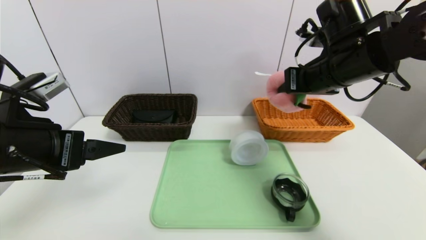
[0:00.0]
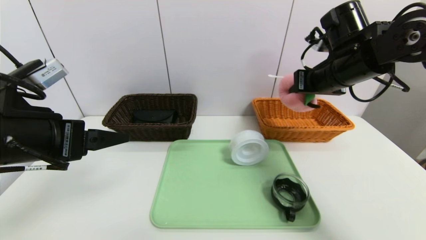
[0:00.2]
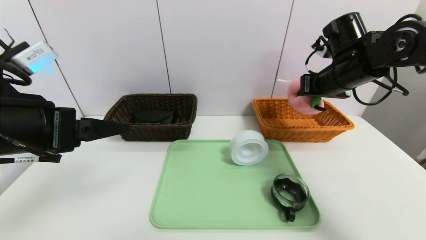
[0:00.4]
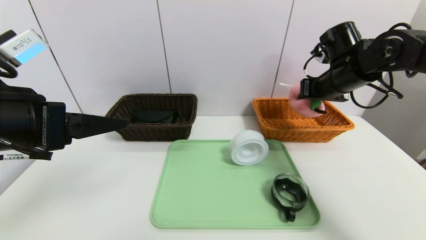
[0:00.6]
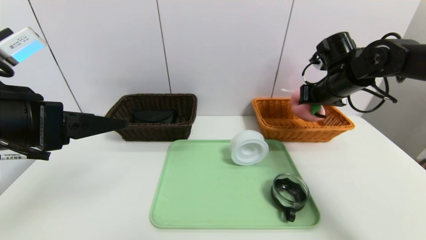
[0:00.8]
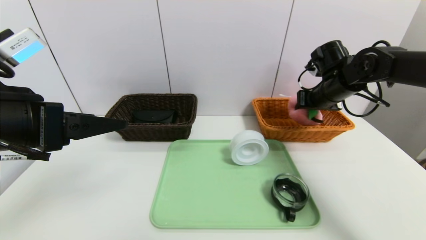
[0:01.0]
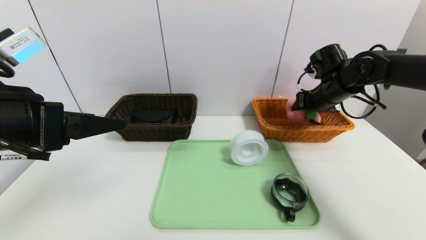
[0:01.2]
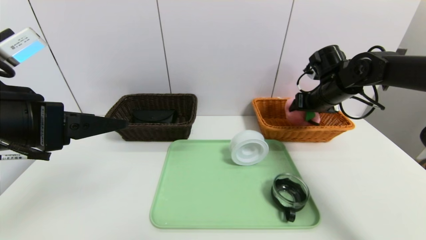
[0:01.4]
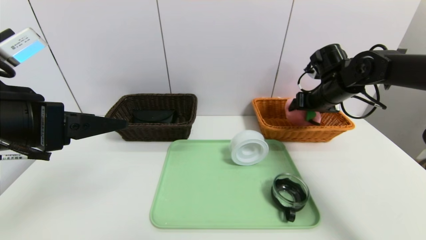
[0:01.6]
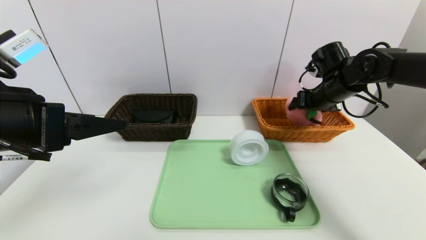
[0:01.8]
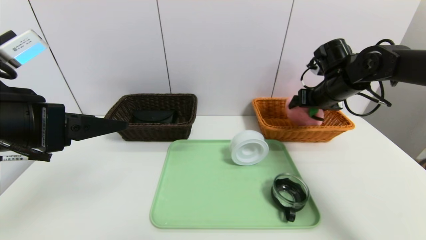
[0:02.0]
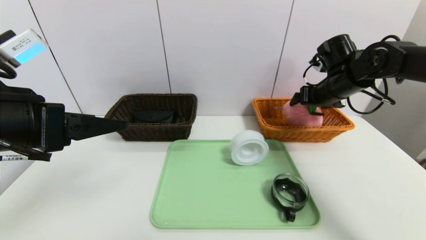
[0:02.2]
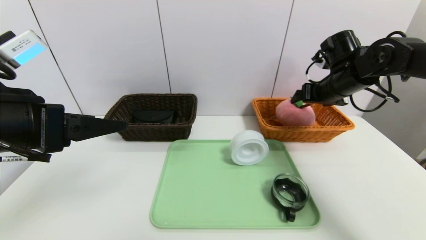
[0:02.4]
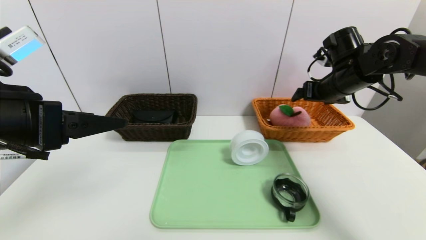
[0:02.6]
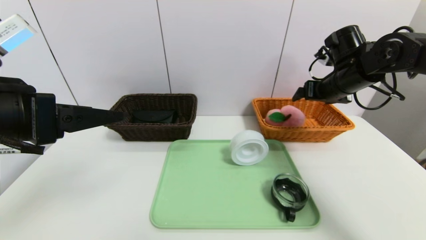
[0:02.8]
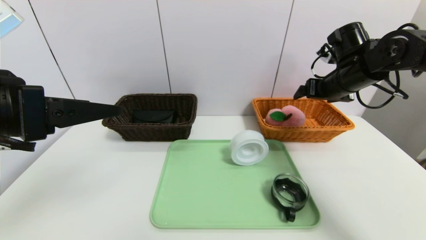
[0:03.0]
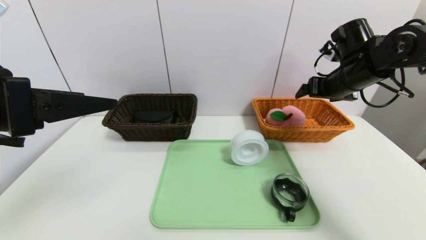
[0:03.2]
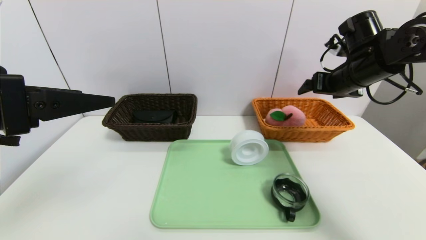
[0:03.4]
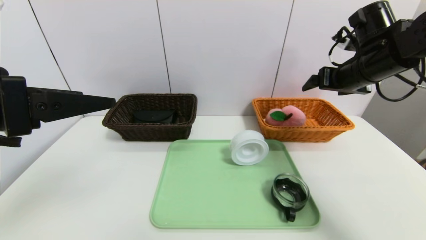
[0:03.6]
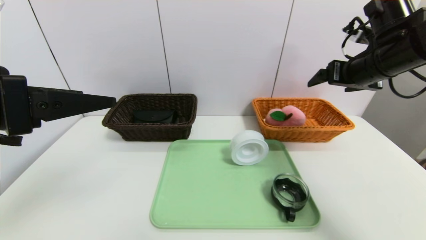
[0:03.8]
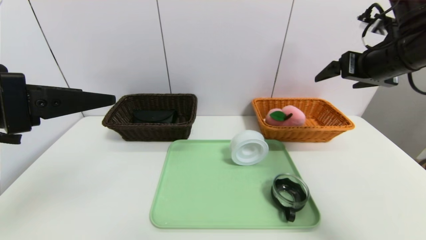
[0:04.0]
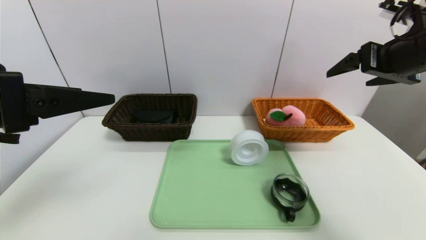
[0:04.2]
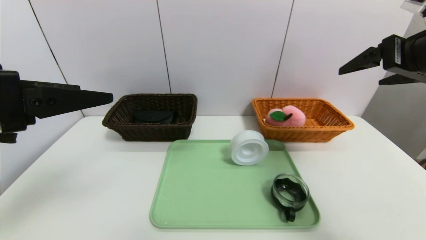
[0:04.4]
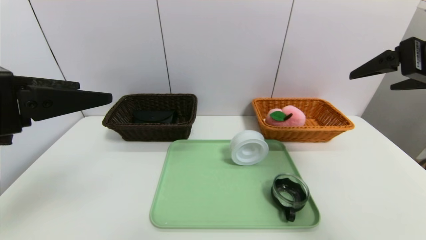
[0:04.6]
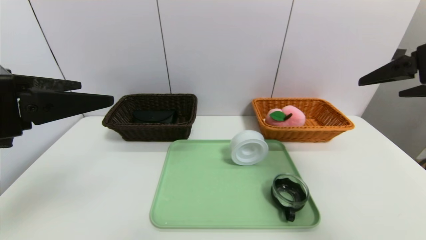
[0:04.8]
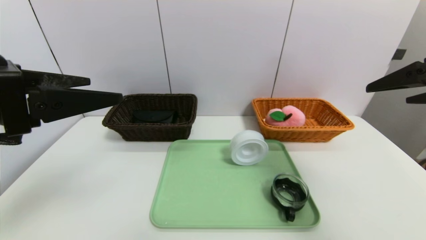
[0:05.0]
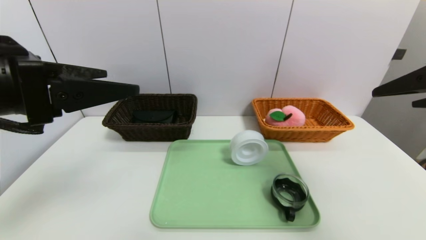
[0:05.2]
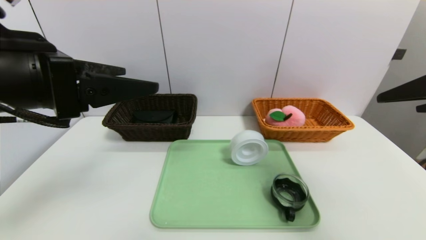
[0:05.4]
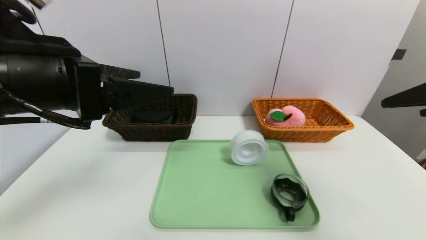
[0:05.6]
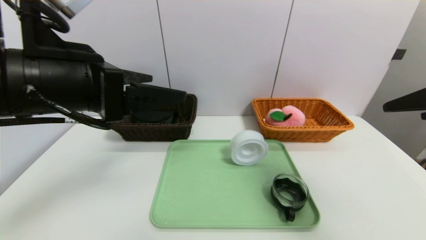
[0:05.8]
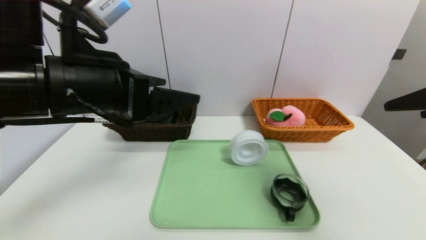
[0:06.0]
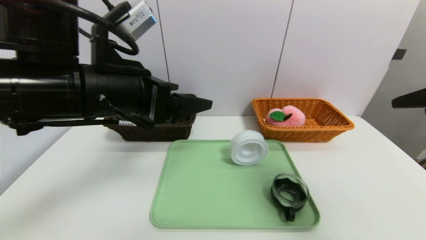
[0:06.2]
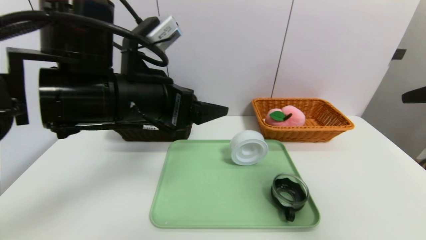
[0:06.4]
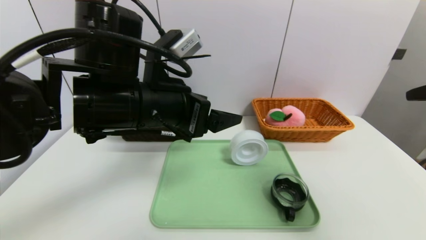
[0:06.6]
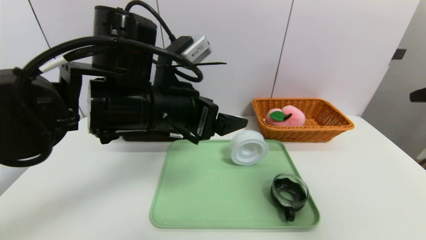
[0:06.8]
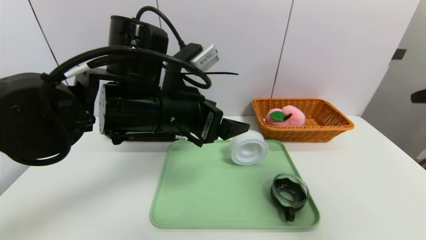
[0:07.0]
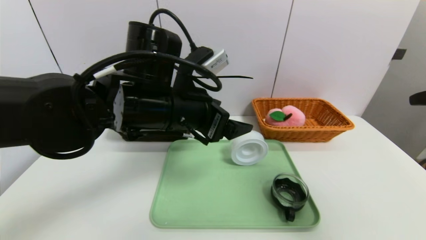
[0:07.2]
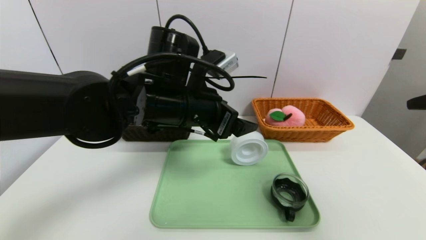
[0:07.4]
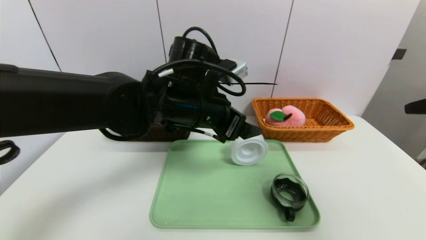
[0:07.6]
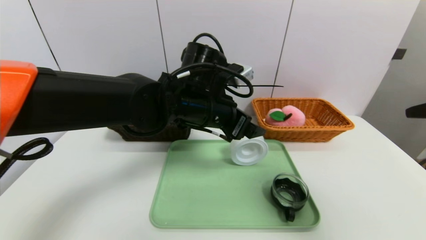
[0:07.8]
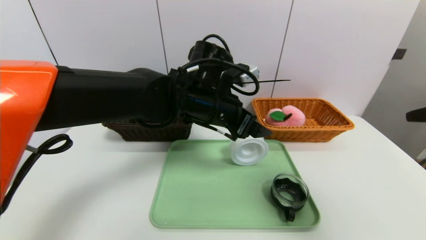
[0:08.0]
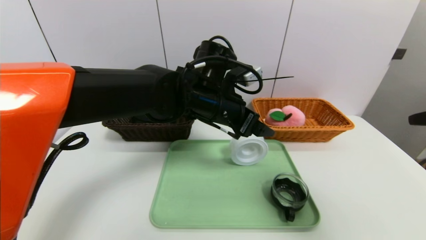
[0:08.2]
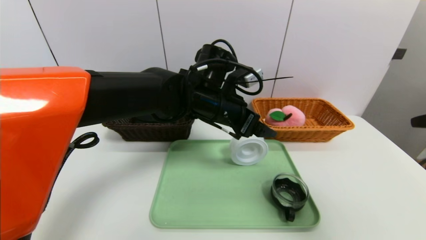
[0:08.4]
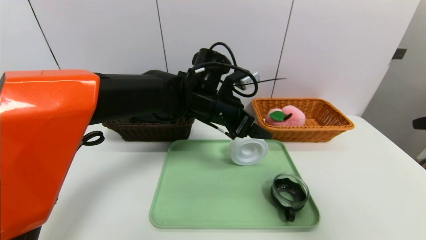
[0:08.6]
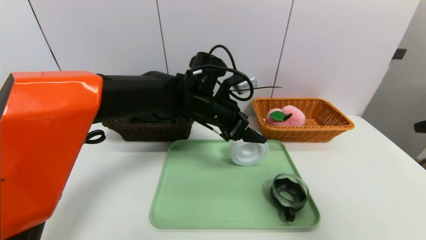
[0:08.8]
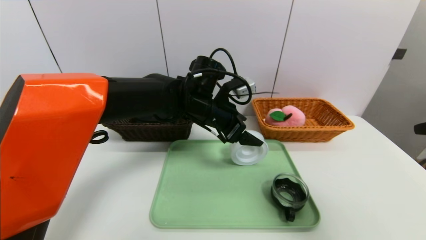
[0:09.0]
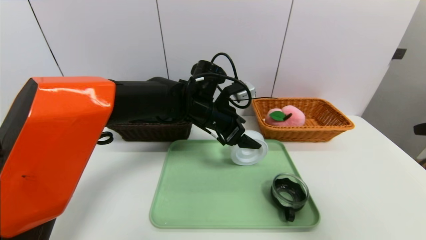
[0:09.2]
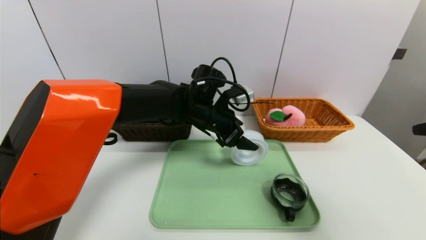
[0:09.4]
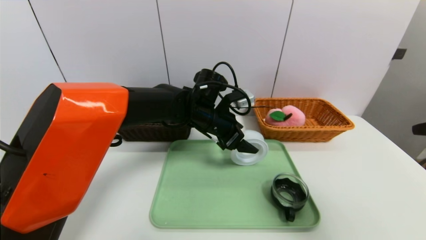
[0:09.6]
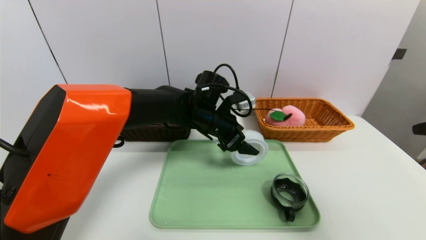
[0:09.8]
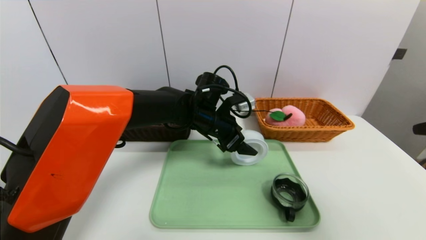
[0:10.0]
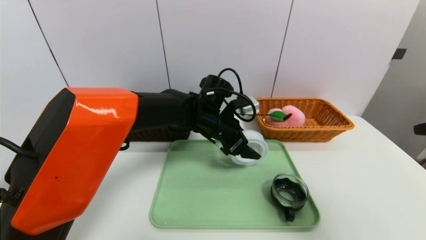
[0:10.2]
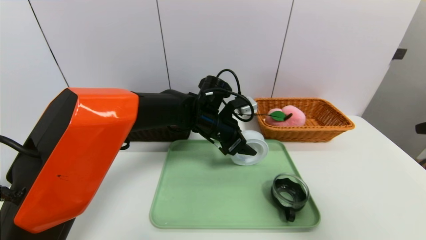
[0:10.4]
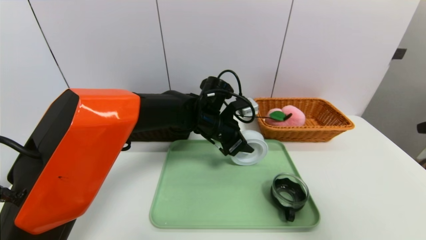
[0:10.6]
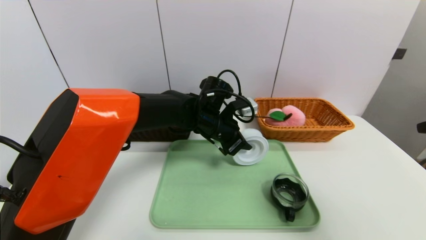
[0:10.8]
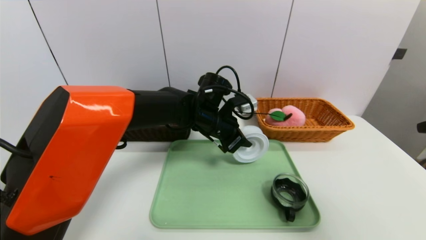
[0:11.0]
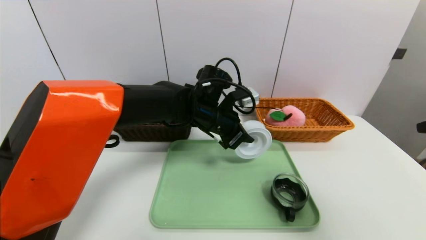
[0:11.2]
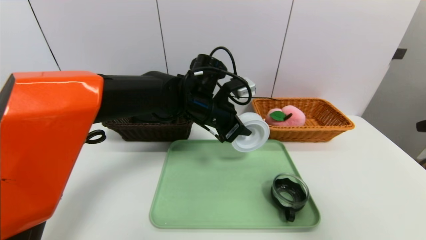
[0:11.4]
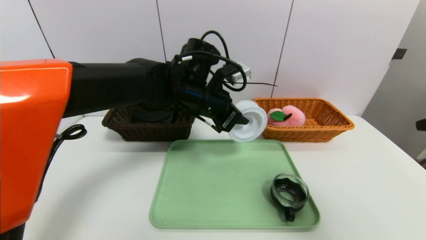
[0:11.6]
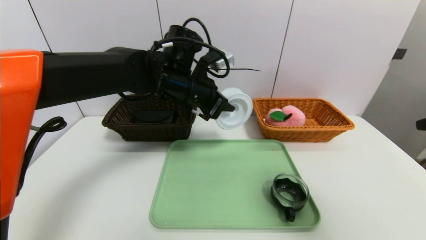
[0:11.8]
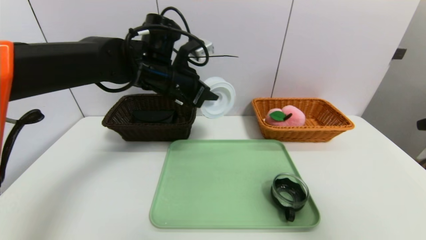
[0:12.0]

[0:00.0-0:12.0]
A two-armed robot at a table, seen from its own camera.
Task of the whole recording: place the food in the right basket with the right gripper, and place the non food items in the left basket with the left gripper.
Step, 0:00.0 to 0:02.4: Grasp the peach doll and put it in the right basket.
0:00.0 to 0:01.6: The right gripper is displaced forward, downward and to the right by roughly 15 cm, and opens.
0:01.6 to 0:03.0: The right gripper moves about 5 cm.
0:03.0 to 0:04.4: The right gripper heads backward and upward, covering some 20 cm.
0:04.4 to 0:06.0: The right gripper moves backward, roughly 10 cm. Meanwhile the left gripper moves to the right and forward, approximately 10 cm.
0:06.0 to 0:07.6: The left gripper goes roughly 15 cm to the right, forward and downward.
0:07.6 to 0:09.0: The left gripper is displaced forward by approximately 5 cm.
0:09.0 to 0:10.4: The left gripper closes its fingers.
0:10.4 to 0:12.0: The left gripper shifts some 15 cm upward and to the left, and closes its fingers.

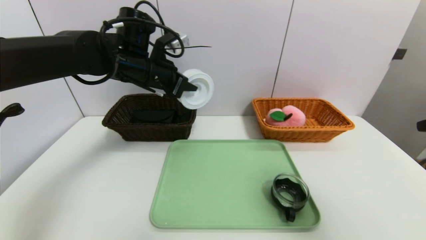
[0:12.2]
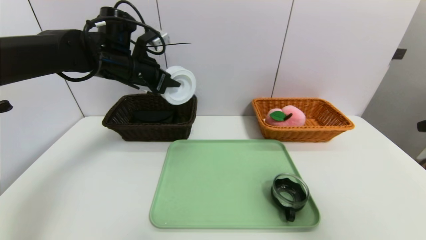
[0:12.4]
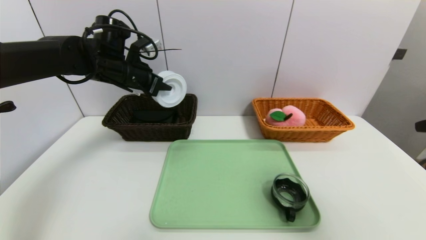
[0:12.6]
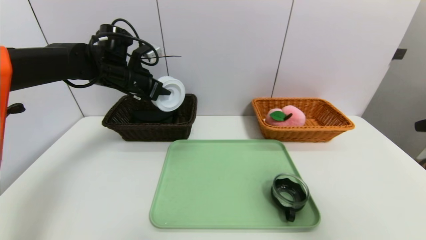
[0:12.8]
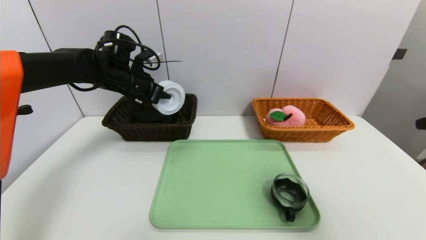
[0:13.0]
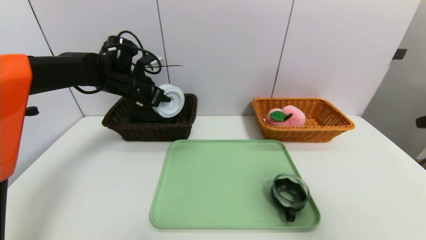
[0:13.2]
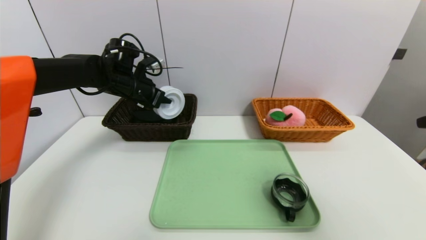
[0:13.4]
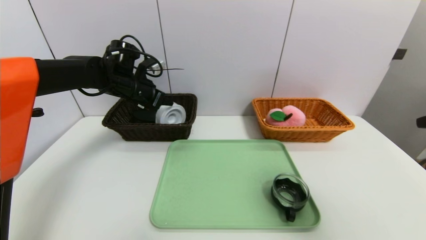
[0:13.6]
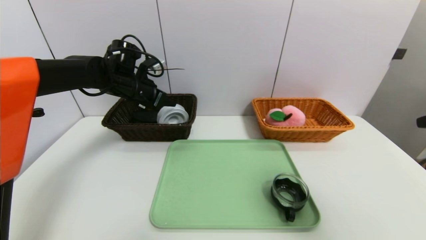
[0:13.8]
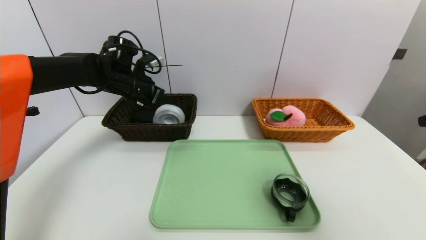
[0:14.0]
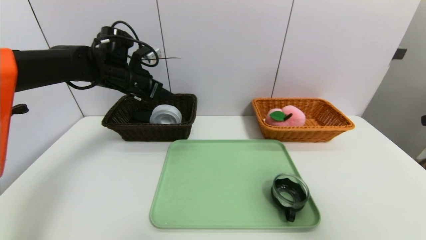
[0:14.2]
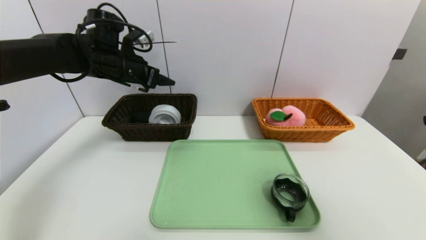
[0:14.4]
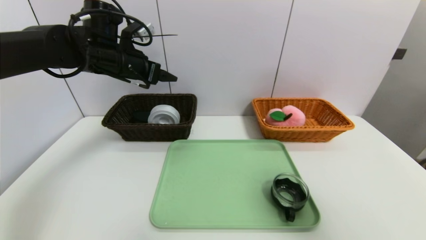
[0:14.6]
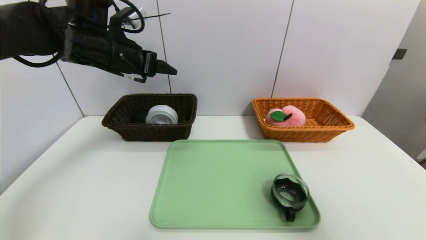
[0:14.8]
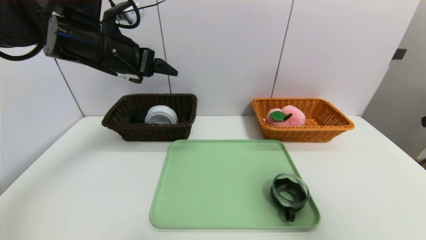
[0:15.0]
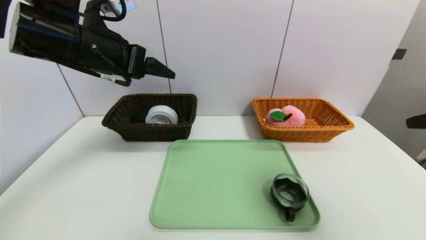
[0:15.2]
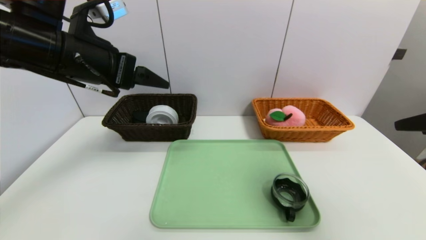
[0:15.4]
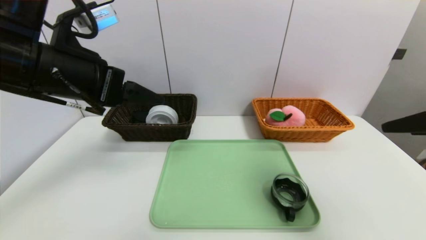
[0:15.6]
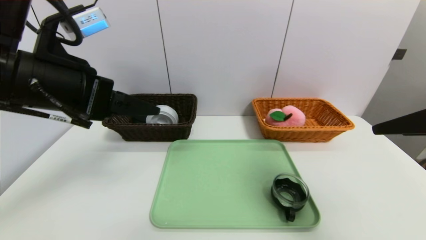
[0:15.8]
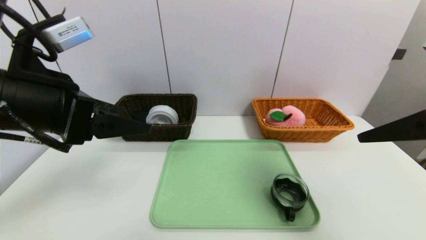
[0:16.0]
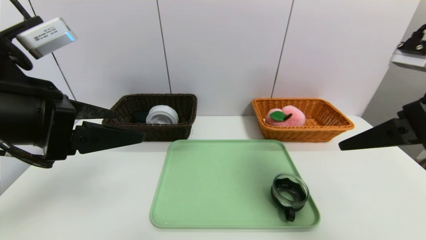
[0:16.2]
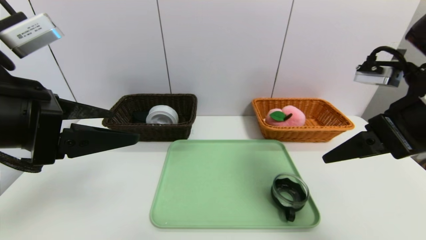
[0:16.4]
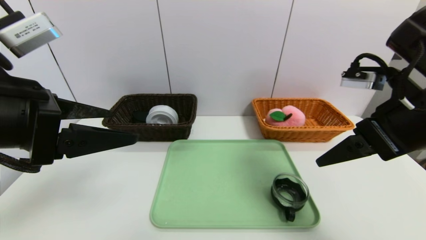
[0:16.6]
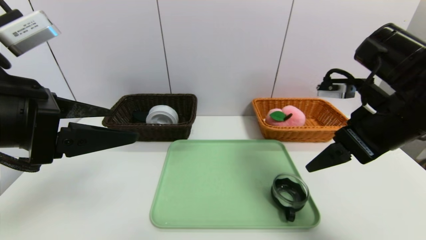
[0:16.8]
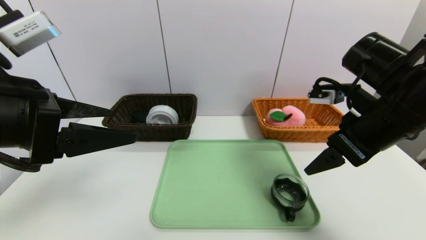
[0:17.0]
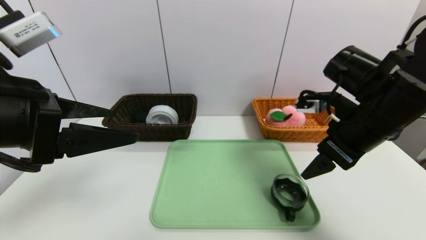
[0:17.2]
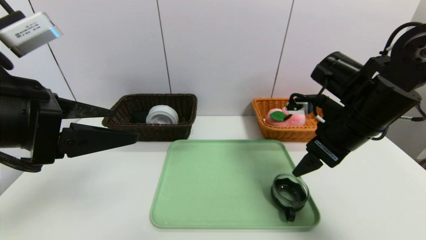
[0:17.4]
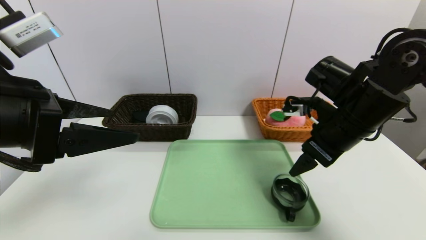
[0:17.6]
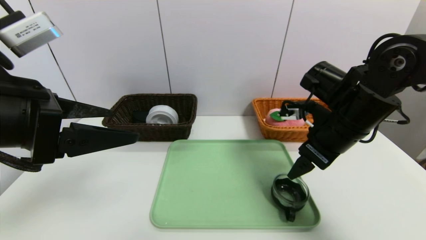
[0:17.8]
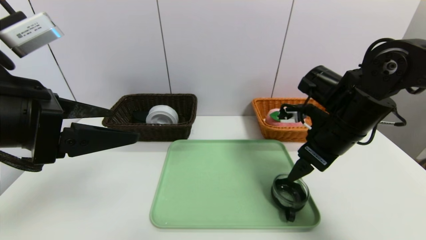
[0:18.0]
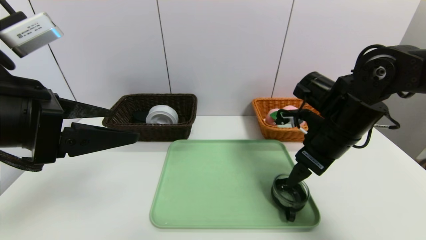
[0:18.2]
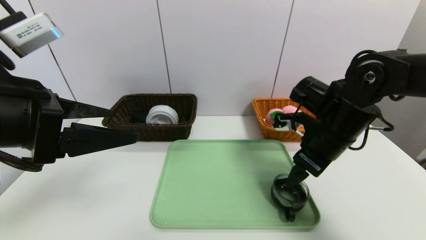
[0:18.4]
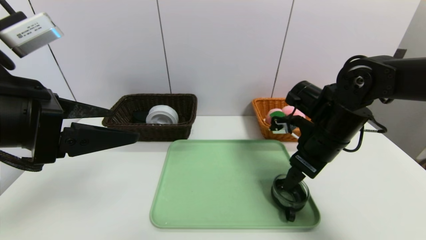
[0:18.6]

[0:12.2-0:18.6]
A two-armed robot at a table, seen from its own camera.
Task of the whole recording: place the food in the right basket with the right gripper, and place the non food items in the left basket with the left gripper.
0:12.2 to 0:13.8: The left gripper goes about 10 cm to the left, forward and downward, and opens.
0:13.8 to 0:15.4: The left gripper travels backward and upward by approximately 20 cm, and opens up.
0:15.4 to 0:17.0: The right gripper shifts some 15 cm forward, downward and to the left; the left gripper is displaced backward by approximately 10 cm.
0:17.0 to 0:18.6: The right gripper is displaced downward and forward by about 10 cm.
